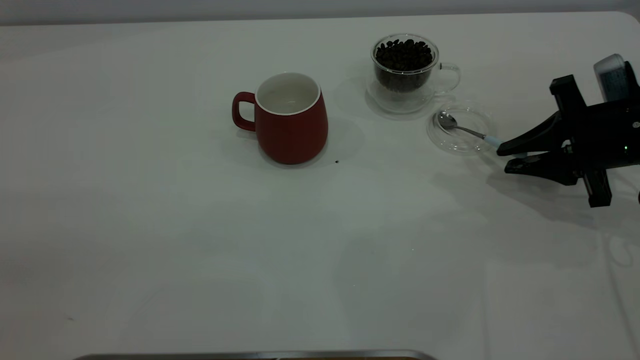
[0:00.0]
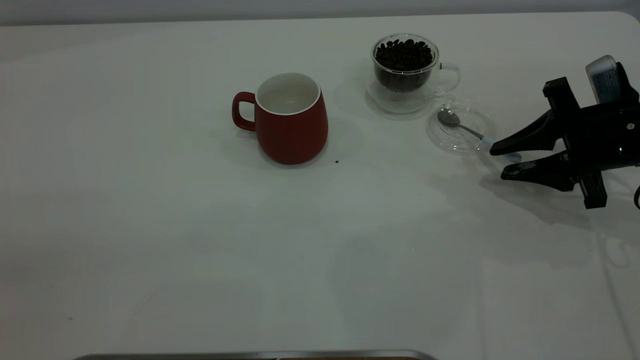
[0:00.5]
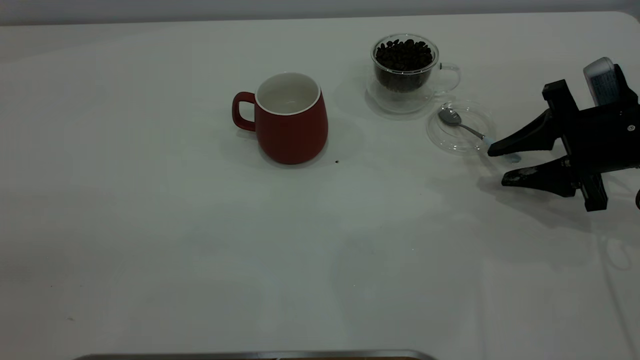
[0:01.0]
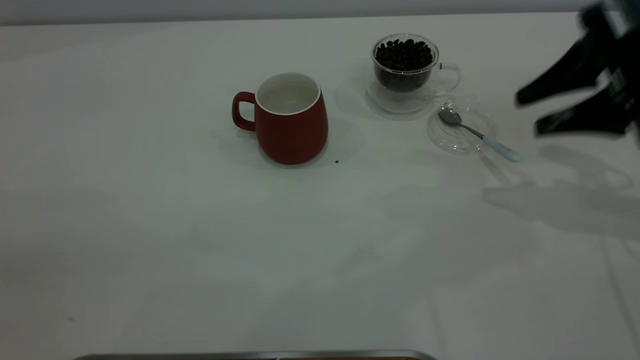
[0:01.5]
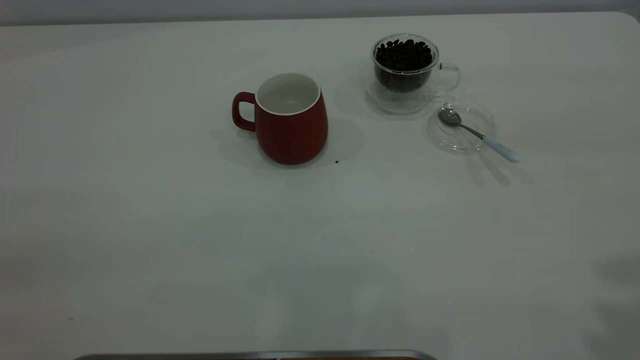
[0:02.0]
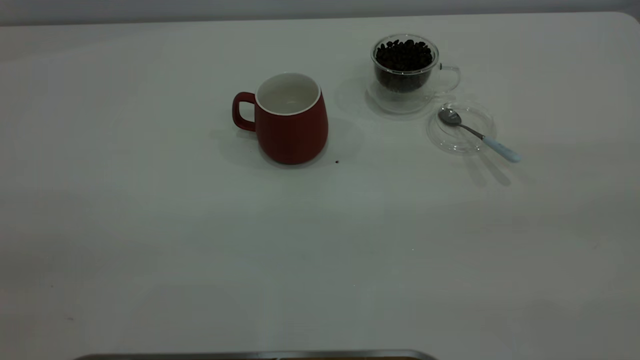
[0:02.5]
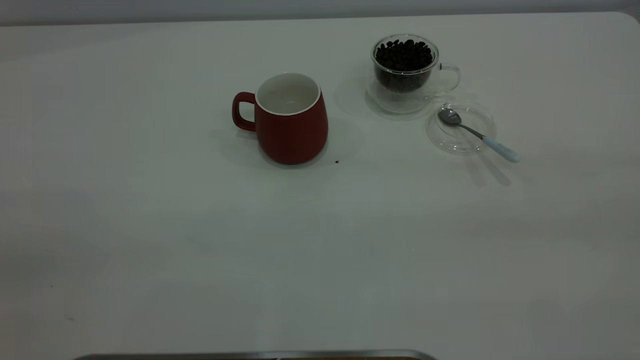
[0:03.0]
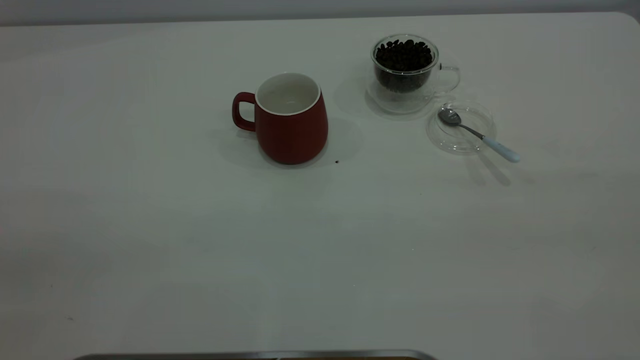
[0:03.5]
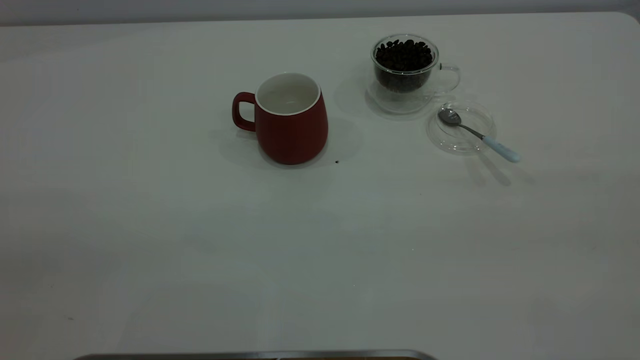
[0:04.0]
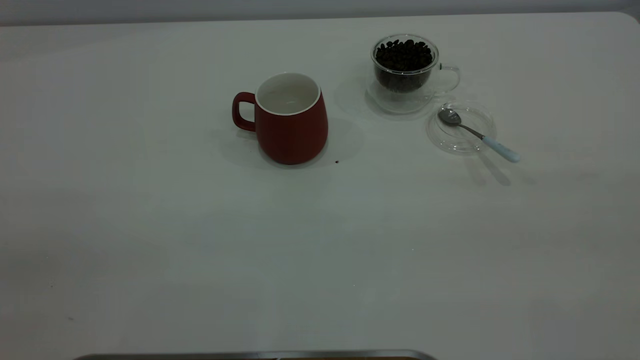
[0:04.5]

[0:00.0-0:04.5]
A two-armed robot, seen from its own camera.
Task of the whole recording: the left gripper place the red cup in the center of the table, the right gripper take the blue spoon from the cup lid and scoop out the coffee beans from the coffee cup and put them into the red cup, the right gripper put the spoon back into the cup lid.
0:00.0 to 0:02.0: The right gripper travels upward and backward by roughly 35 cm.
